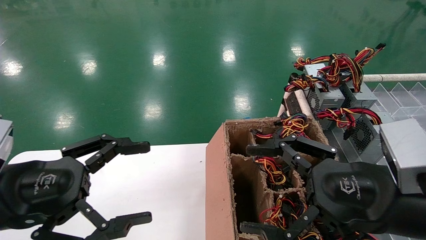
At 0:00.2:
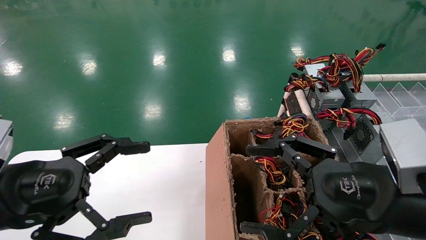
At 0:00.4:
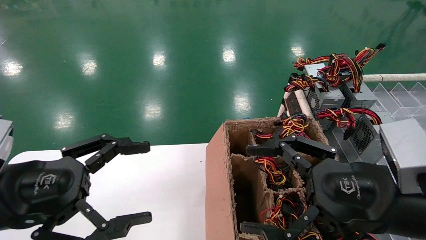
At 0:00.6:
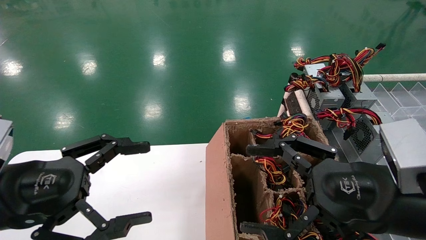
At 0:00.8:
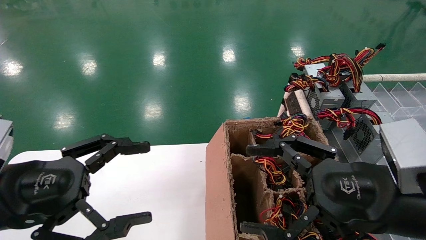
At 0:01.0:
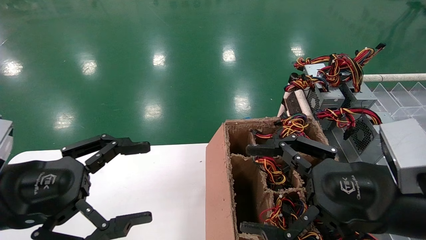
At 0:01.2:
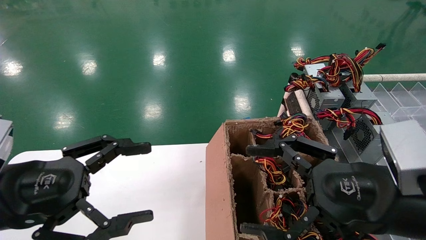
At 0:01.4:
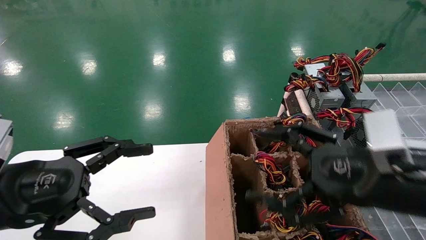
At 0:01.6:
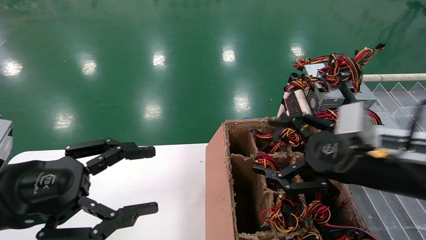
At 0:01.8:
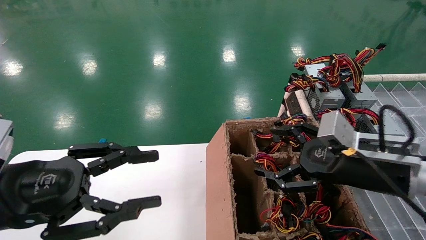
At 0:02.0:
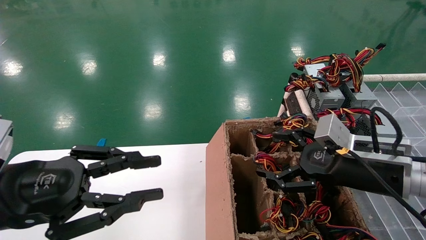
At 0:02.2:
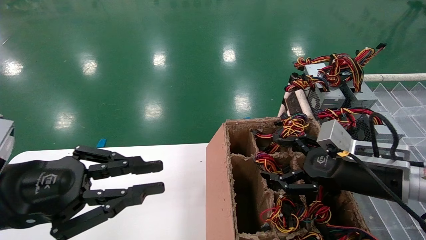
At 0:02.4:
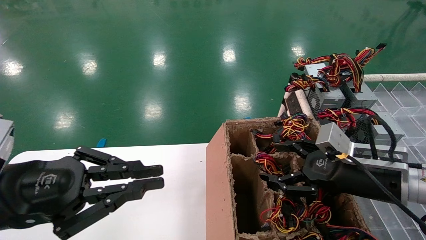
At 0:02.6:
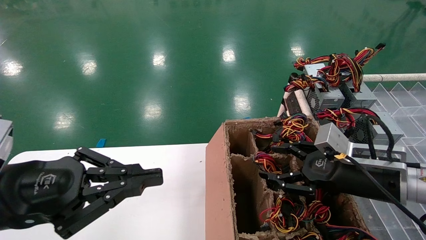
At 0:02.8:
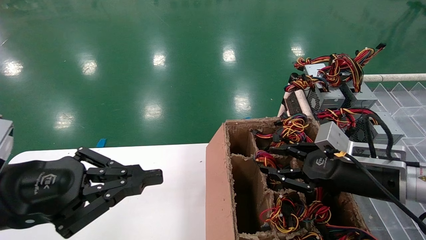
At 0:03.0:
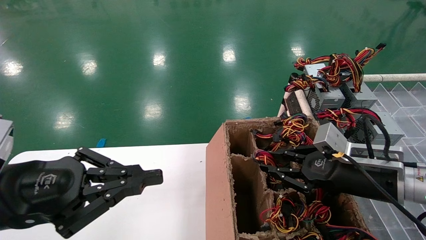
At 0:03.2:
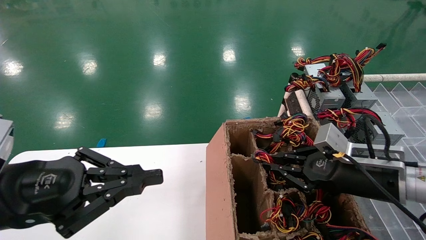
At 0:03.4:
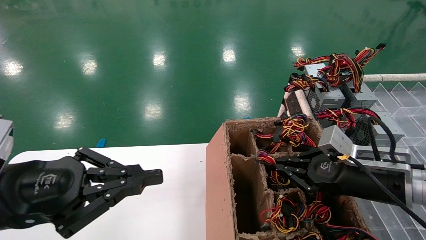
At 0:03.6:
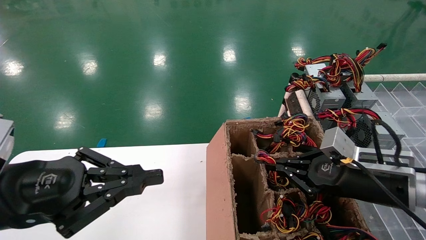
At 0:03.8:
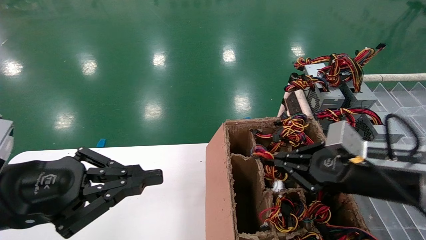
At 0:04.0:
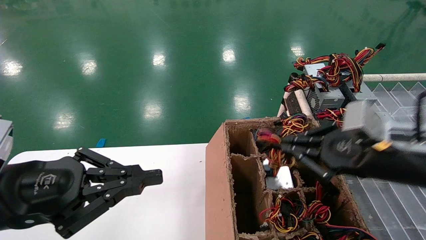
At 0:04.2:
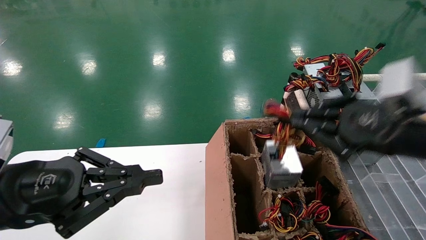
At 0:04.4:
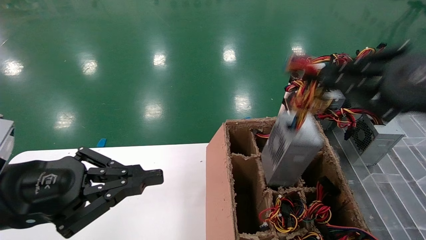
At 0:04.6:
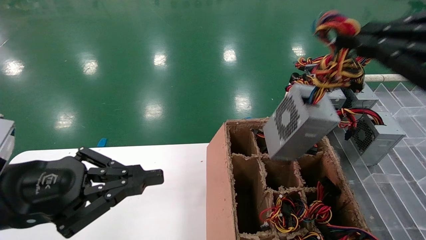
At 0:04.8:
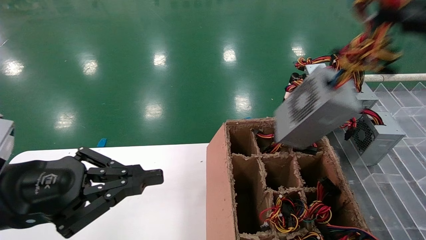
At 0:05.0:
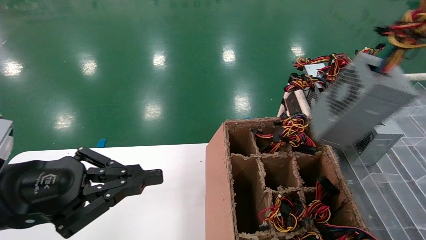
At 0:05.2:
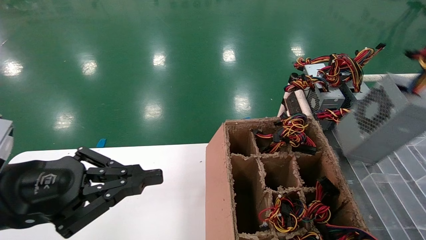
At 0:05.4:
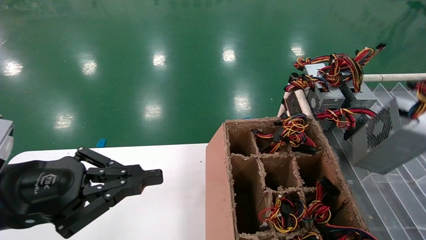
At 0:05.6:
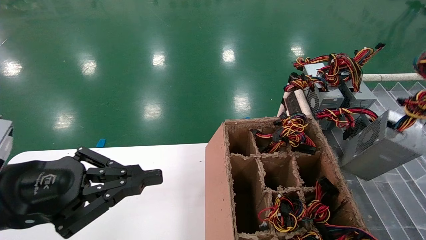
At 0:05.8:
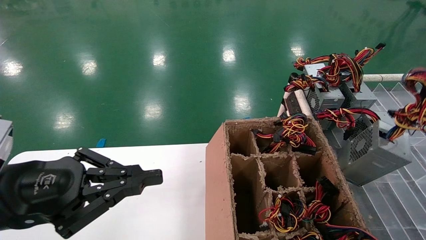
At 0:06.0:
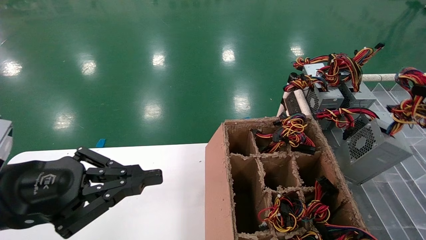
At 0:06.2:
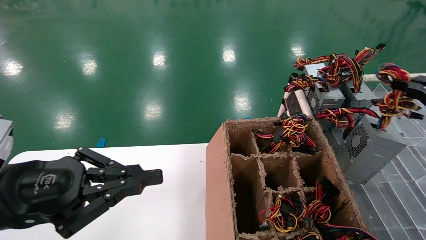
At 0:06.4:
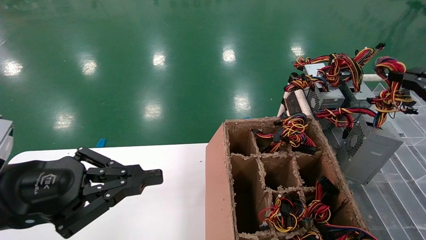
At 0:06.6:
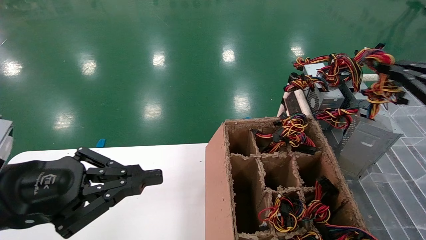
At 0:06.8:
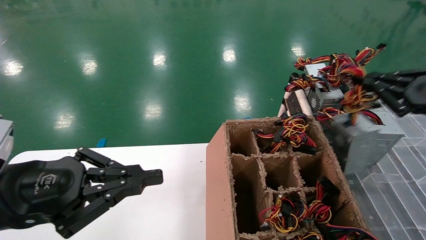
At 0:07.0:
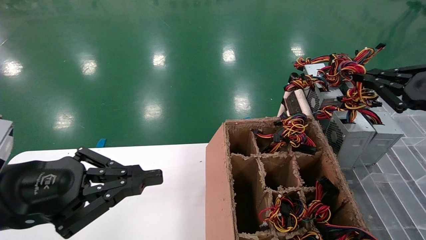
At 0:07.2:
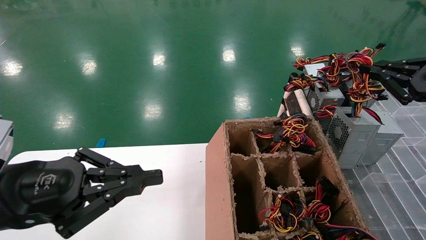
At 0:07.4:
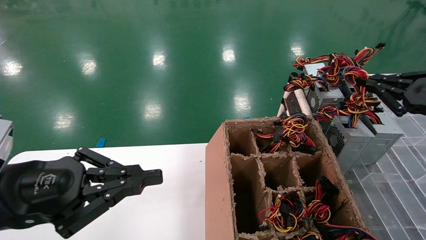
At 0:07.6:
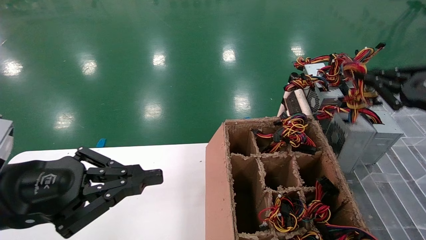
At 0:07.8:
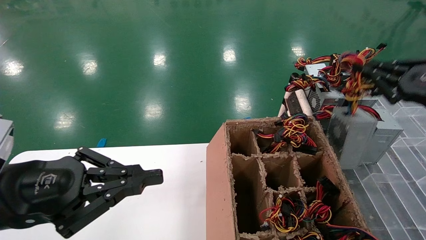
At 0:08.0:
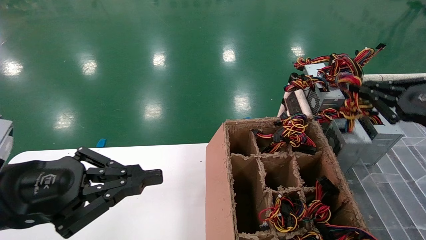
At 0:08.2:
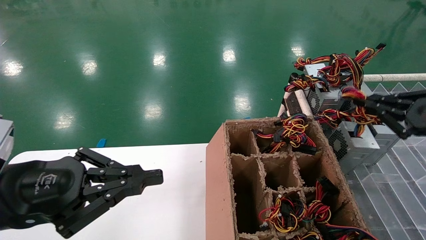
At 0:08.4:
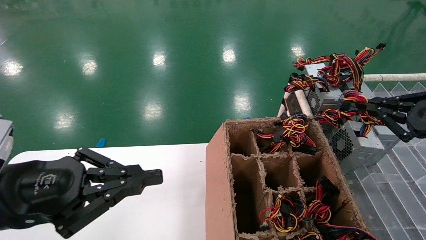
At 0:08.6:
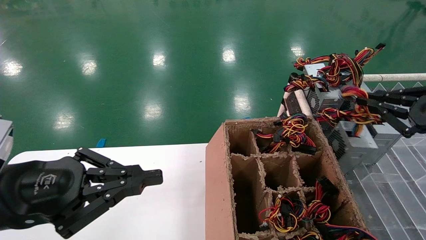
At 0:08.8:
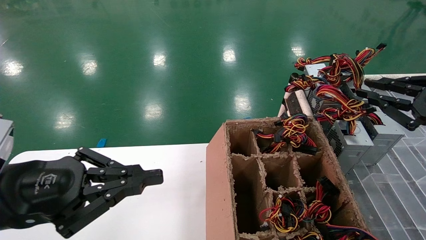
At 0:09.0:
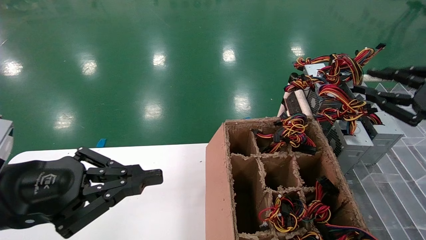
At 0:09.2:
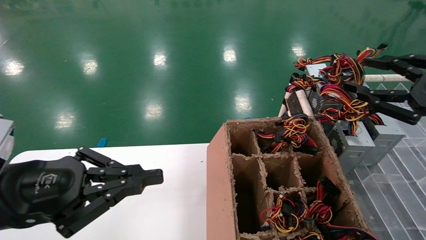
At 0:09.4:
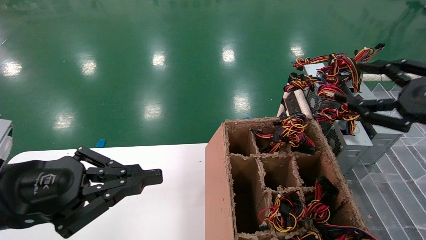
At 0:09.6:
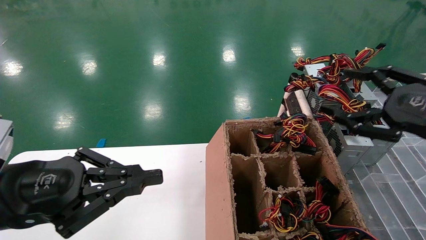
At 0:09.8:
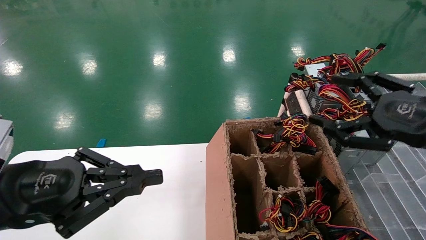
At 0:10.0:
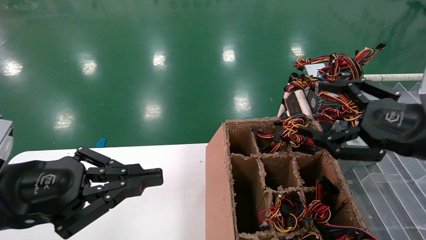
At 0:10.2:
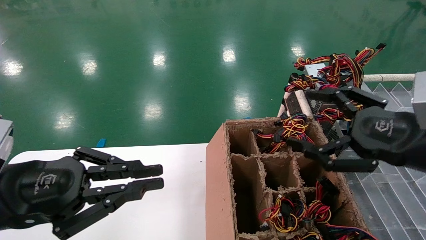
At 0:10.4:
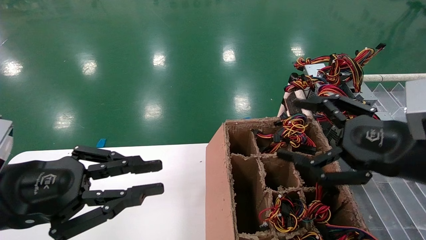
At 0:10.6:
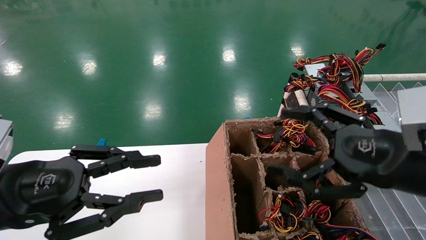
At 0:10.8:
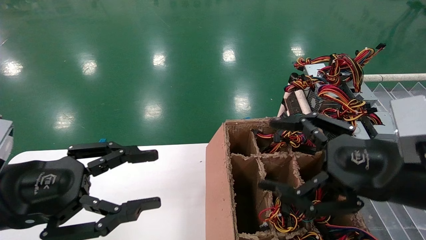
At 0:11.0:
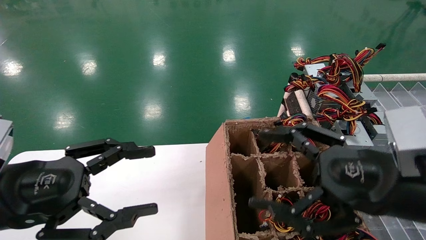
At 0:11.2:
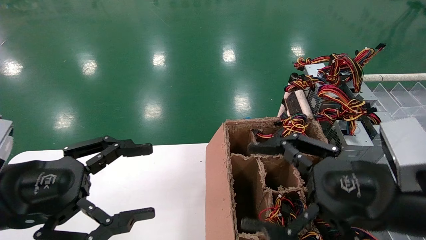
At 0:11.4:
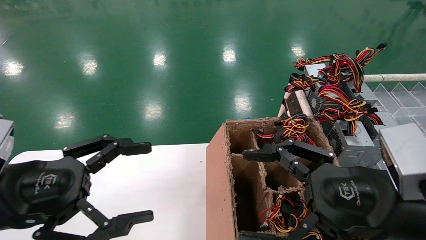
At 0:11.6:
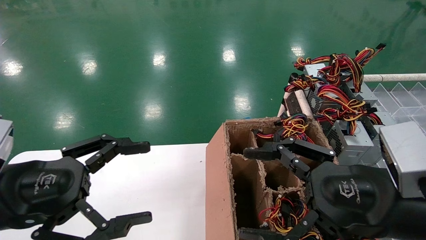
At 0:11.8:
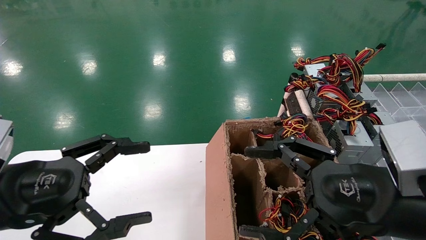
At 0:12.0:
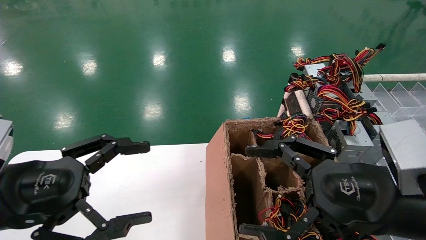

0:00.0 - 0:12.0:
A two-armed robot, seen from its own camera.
Step, 0:01.6 - 0:03.4: Grab the main unit power supply from the containment box.
Step, 0:03.6 - 0:09.0: Place the main unit power supply in the designated area.
0:00.0 - 0:01.6: The right gripper shifts some 5 cm forward.
0:01.6 - 0:03.0: The left gripper closes its fingers. The right gripper moves roughly 5 cm, and closes.
0:03.0 - 0:04.4: The right gripper goes approximately 20 cm upward and backward, and closes its fingers.
0:04.4 - 0:06.0: The right gripper moves to the right, about 15 cm.
0:06.0 - 0:07.6: The right gripper moves forward, roughly 10 cm.
0:07.6 - 0:09.0: The grippers move only a little.
0:09.0 - 0:10.4: The right gripper is displaced to the left by about 10 cm, and opens up.
0:10.4 - 0:12.0: The left gripper opens up; the right gripper travels to the left by some 5 cm.

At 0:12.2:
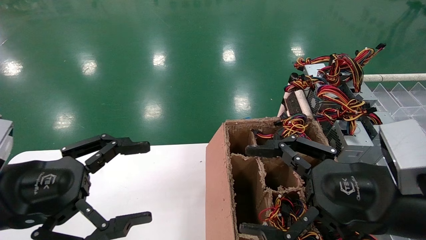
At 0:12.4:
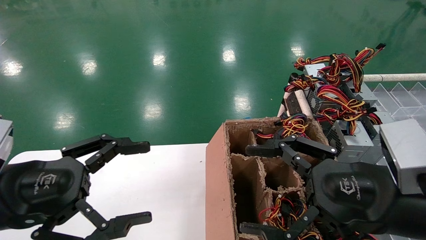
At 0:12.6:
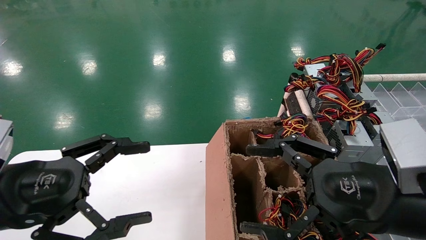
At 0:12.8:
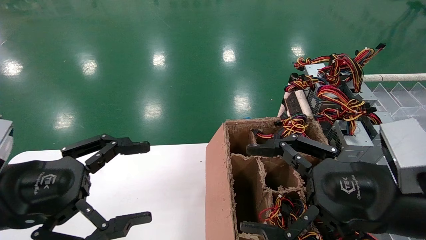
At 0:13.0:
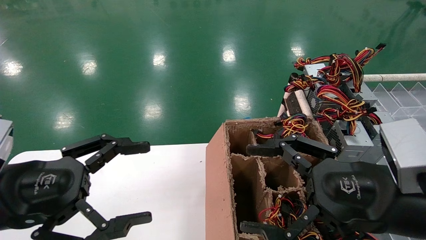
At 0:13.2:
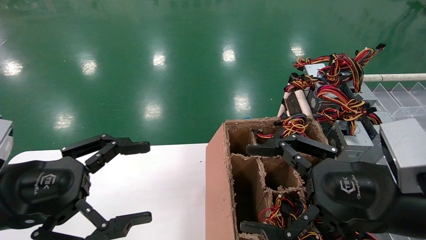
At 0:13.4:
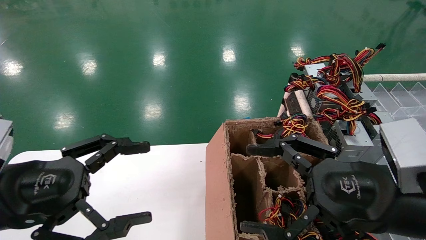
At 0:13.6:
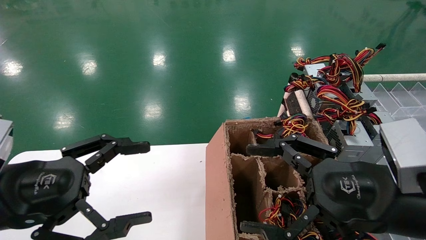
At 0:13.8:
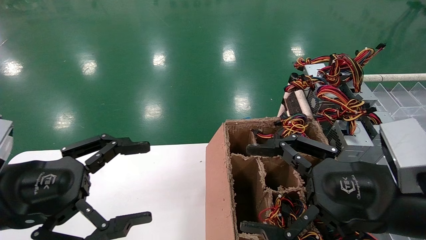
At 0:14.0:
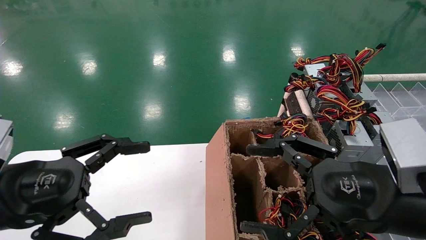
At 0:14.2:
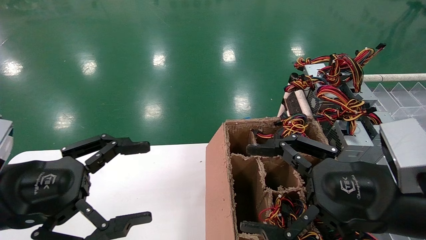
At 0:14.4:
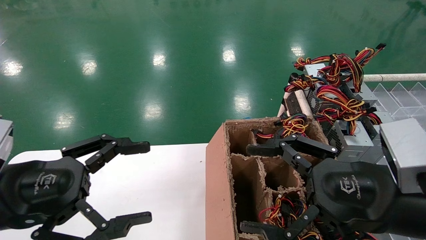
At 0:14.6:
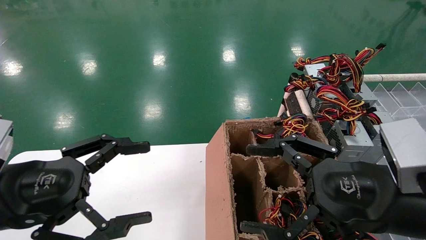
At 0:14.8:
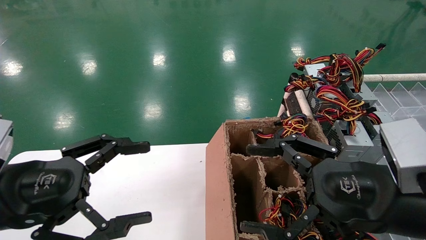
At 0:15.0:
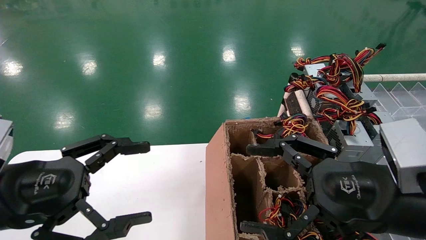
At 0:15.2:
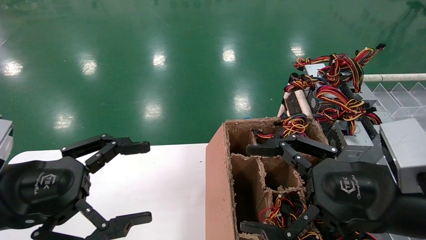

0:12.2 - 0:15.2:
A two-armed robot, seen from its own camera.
0:12.2 - 0:15.2: Both grippers stay put.
